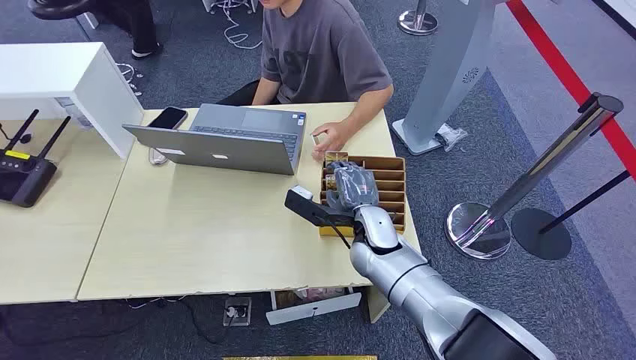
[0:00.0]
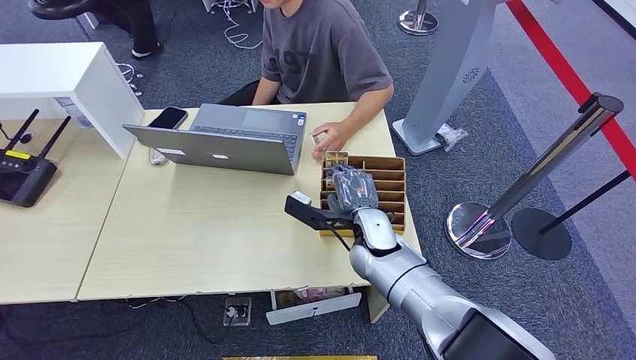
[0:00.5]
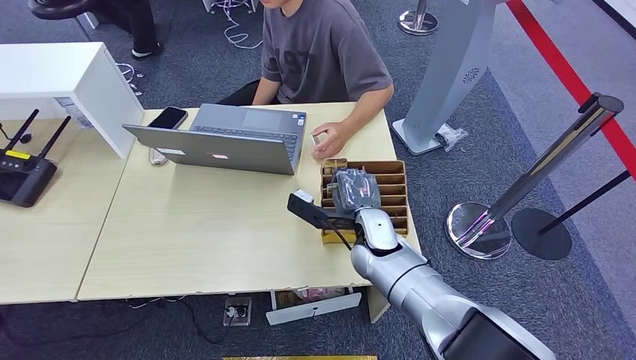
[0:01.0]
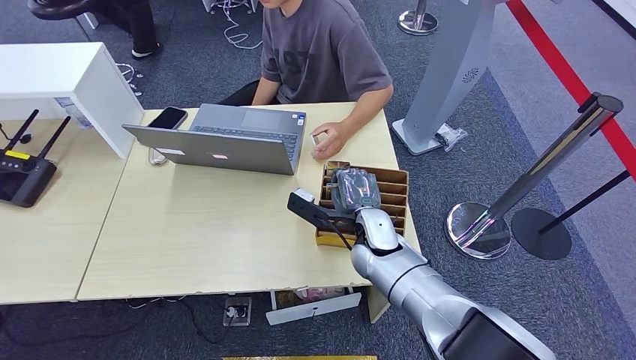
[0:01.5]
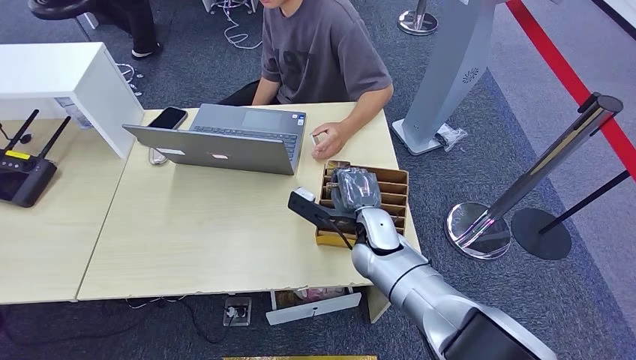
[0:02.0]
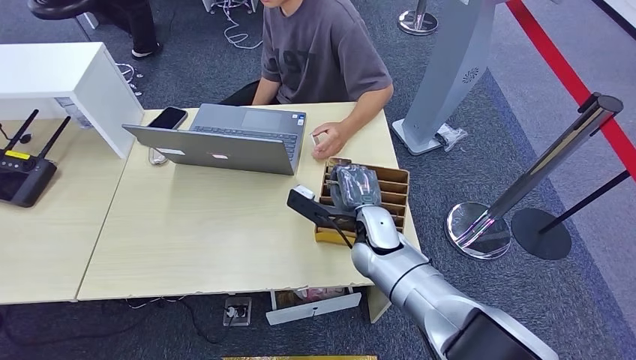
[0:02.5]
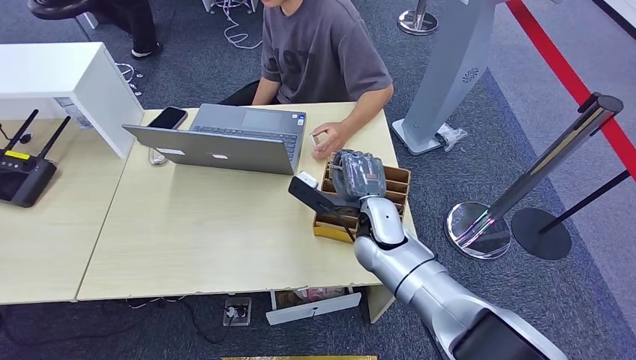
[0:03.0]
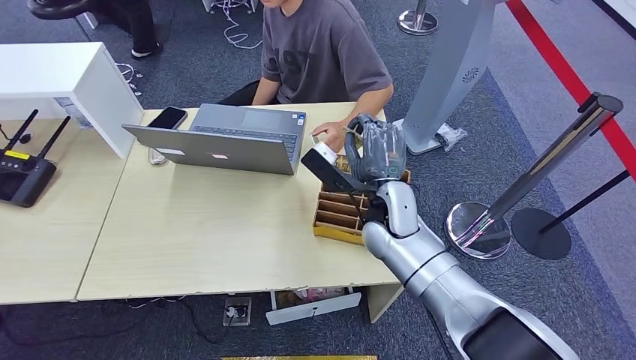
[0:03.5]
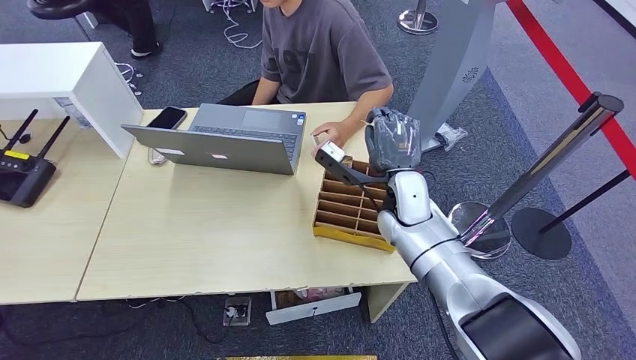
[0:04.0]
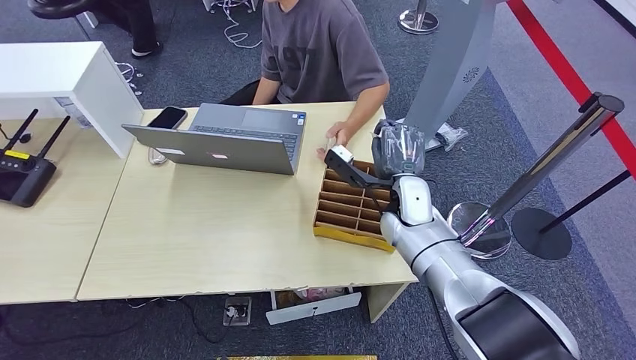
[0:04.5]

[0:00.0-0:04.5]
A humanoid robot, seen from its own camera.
Step, 0:00.0 to 0:02.5: Pick up the room card from the card holder.
Step, 0:03.5 to 0:04.5: Hand the room card to the target.
0:02.0 to 0:04.5: The right hand is displaced to the right by some 5 cm.
